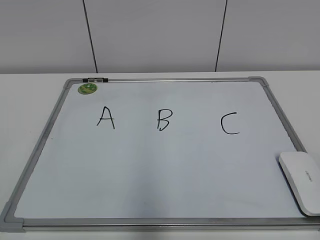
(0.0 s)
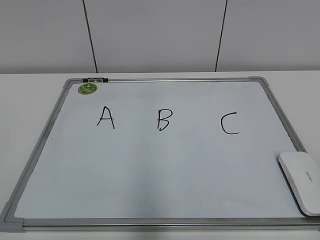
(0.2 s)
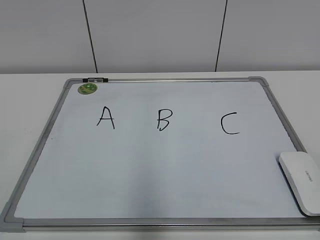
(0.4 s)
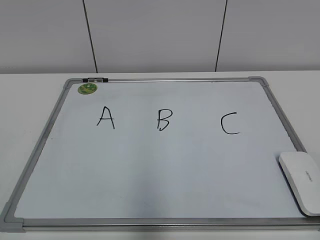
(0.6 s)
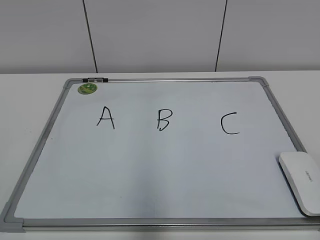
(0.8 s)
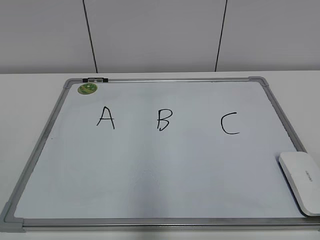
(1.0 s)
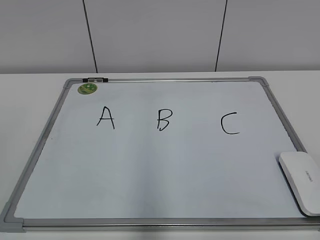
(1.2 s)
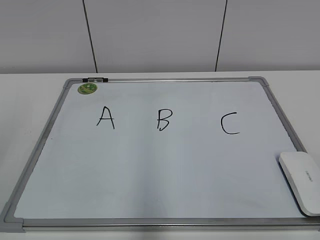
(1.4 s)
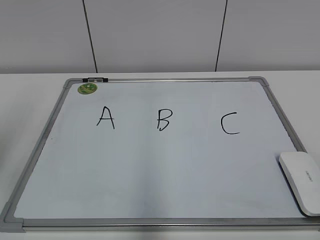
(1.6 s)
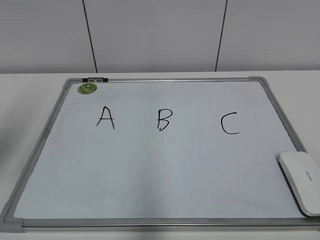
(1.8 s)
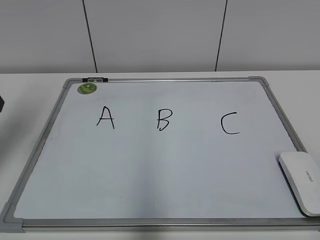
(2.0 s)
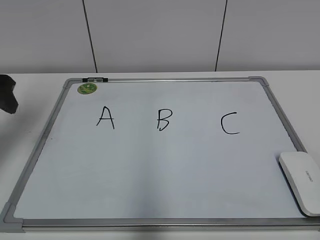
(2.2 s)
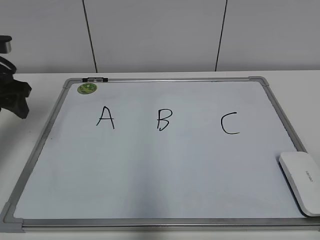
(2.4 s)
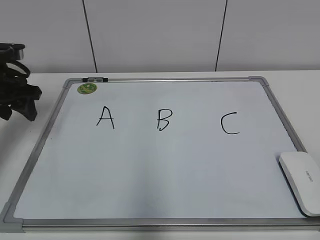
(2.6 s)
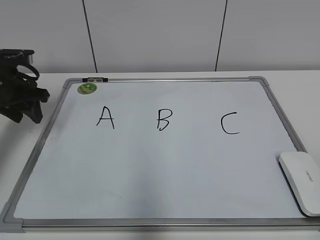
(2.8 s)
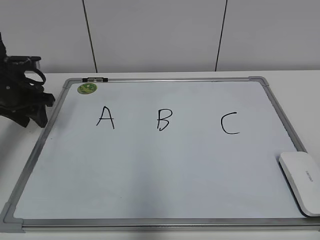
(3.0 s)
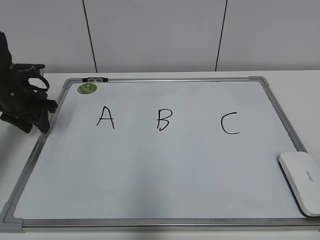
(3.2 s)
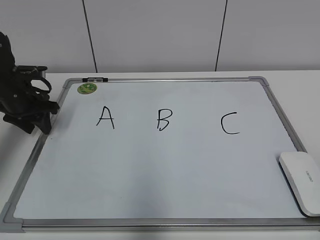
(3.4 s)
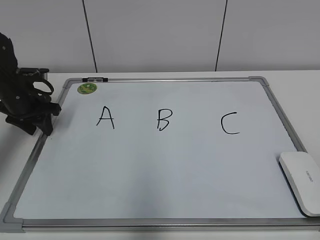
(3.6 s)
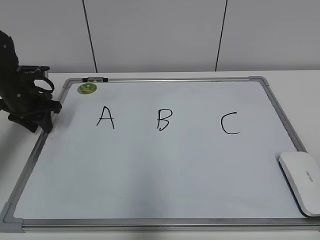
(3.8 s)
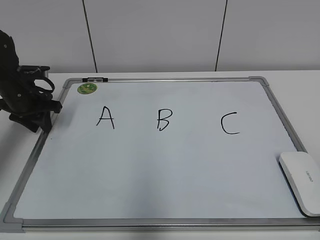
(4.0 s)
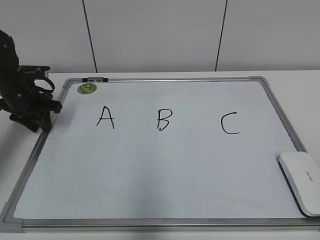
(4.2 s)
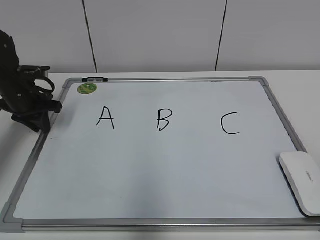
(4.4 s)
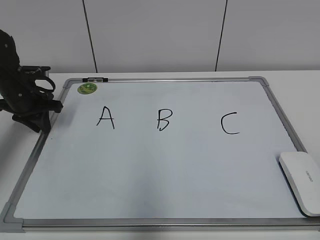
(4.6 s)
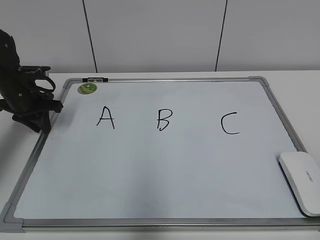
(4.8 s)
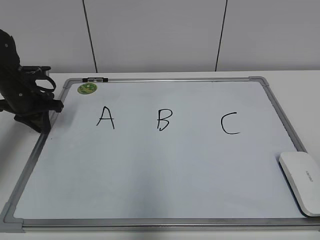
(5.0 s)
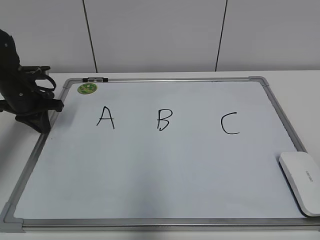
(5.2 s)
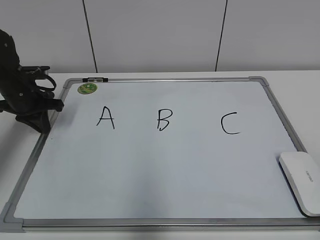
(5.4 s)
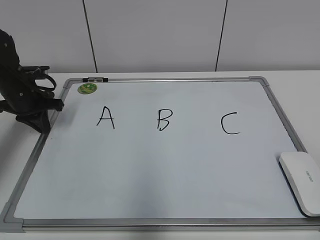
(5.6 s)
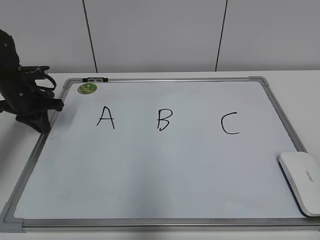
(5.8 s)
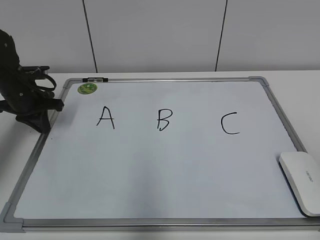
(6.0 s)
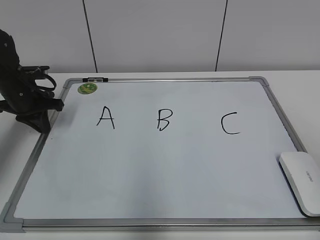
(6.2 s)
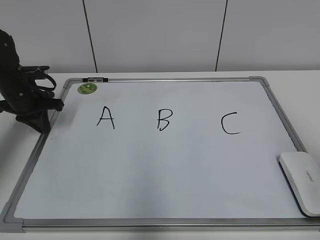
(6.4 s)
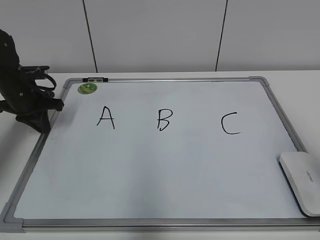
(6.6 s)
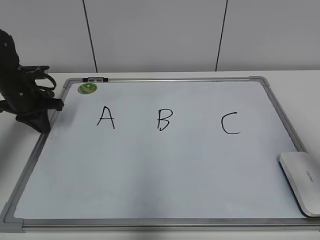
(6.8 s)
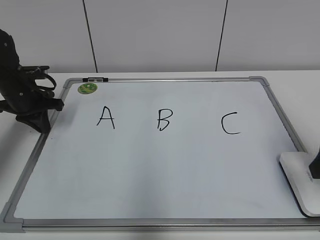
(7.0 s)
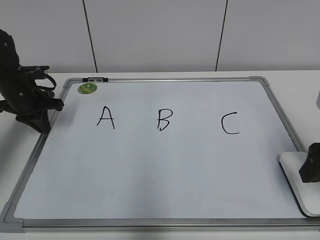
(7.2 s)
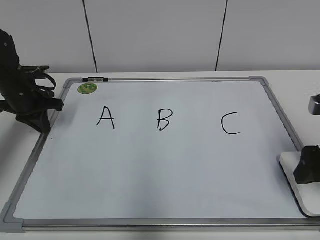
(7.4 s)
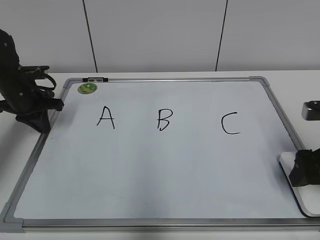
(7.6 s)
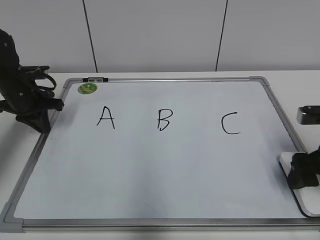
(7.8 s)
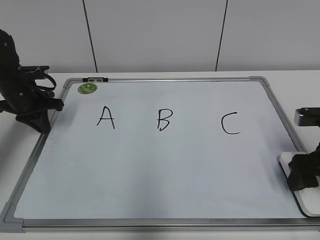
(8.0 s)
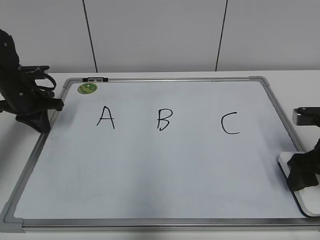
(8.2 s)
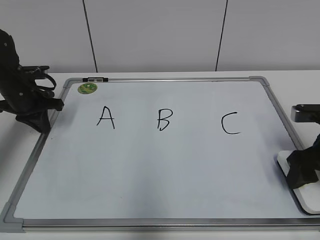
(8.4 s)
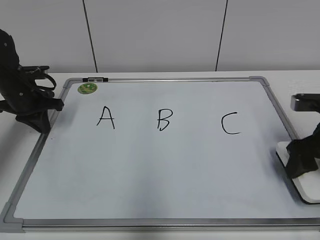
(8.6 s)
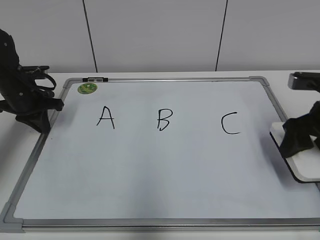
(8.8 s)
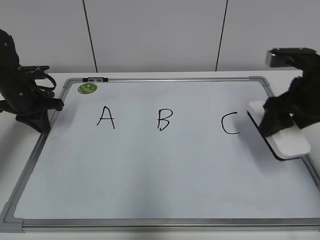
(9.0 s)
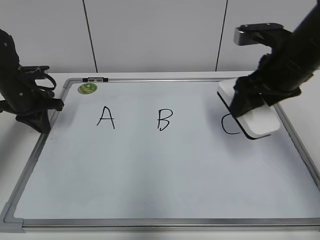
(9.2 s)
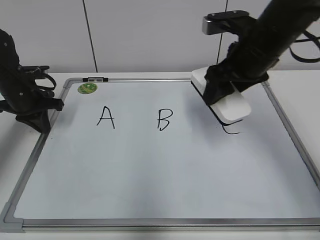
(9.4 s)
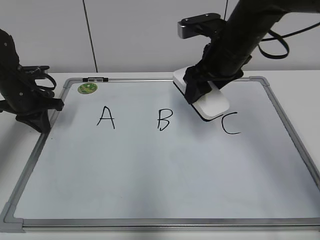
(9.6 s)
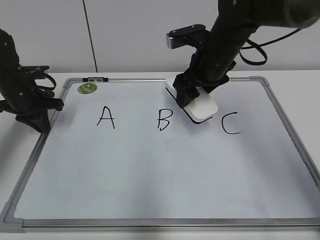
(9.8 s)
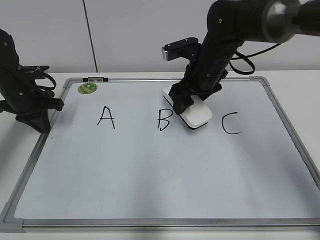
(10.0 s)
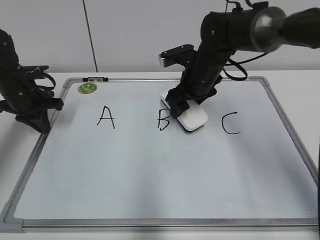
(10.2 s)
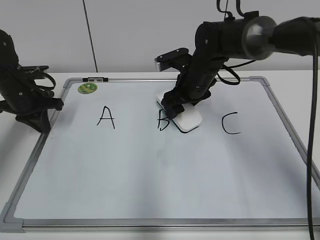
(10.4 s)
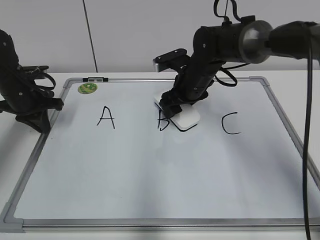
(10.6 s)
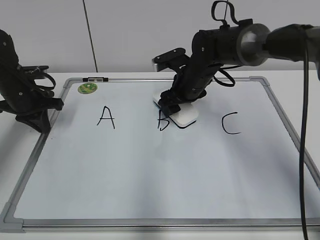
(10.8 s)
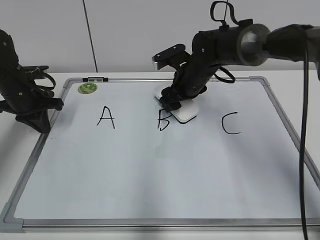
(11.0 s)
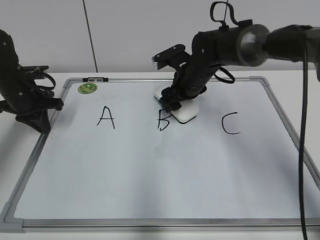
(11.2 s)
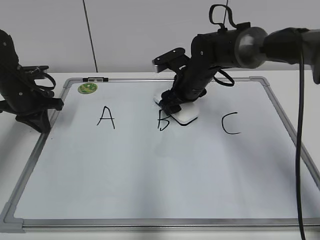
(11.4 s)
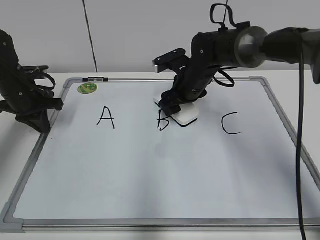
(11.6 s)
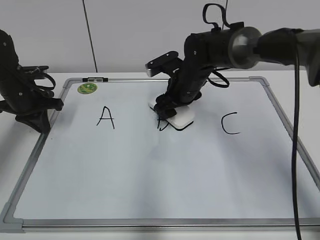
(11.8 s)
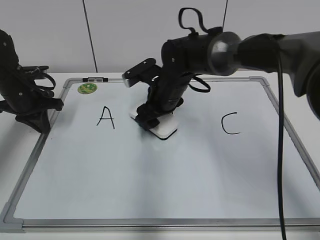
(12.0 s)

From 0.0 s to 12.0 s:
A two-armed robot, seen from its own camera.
Task of the whole recording: pick up the eraser on the blackboard and erase the letter "B".
Step, from 0.0 s to 5.0 s: Hold the drawing board steady with your left hand.
From 1.6 s to 3.0 s: The left gripper shifts approximately 30 cm forward and downward, and closes its fingers.
From 3.0 s to 4.4 s: The grippers move only a little.
From 6.0 s to 7.6 s: The right gripper is displaced forward and downward by about 25 cm, and opens up.
From 7.6 s to 9.0 s: The right gripper is displaced upward and forward by approximately 10 cm, and closes up.
From 9.0 s to 10.4 s: The right gripper moves to the left, forward and downward, some 20 cm.
From 10.4 s to 12.0 s: The right gripper moves to the left, approximately 5 cm.

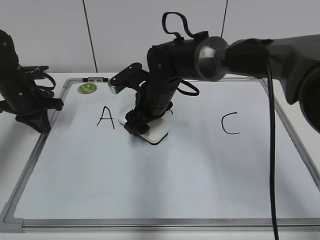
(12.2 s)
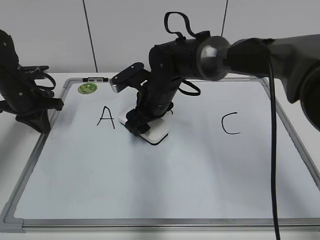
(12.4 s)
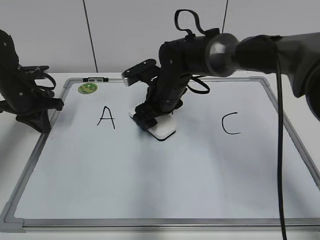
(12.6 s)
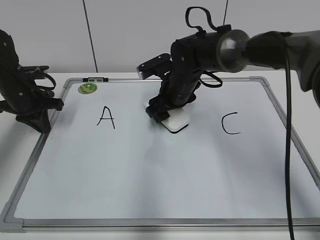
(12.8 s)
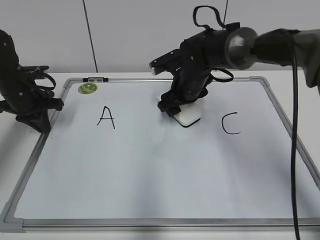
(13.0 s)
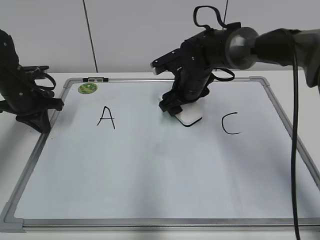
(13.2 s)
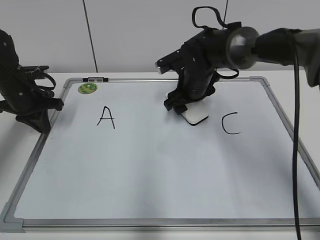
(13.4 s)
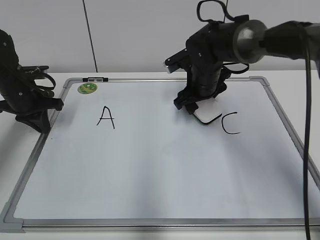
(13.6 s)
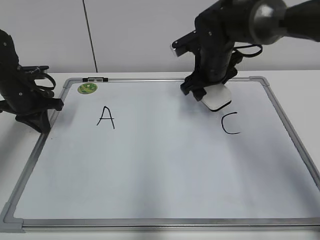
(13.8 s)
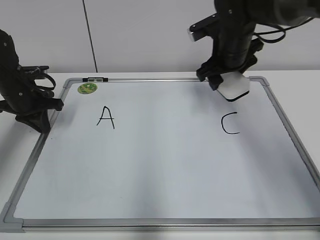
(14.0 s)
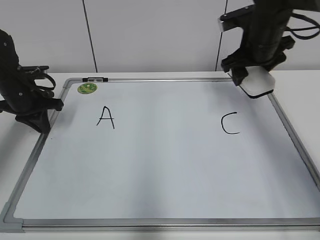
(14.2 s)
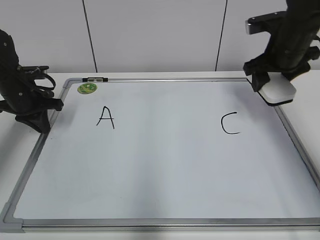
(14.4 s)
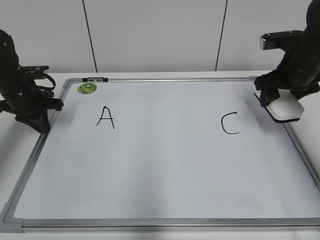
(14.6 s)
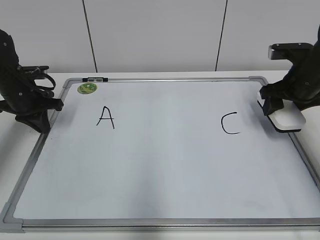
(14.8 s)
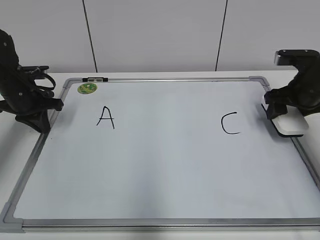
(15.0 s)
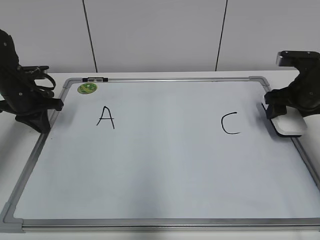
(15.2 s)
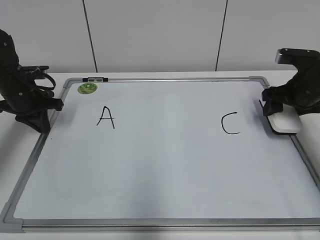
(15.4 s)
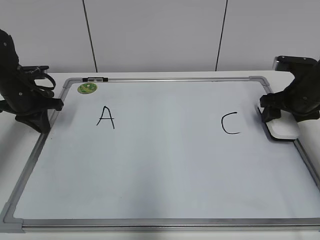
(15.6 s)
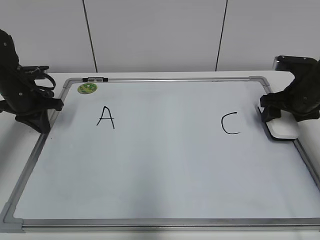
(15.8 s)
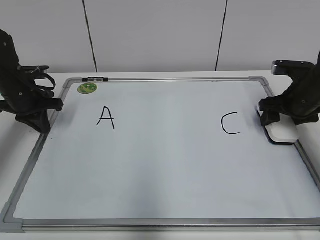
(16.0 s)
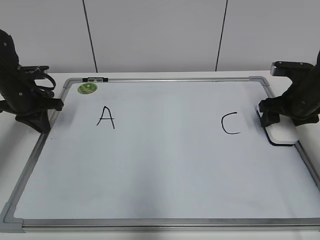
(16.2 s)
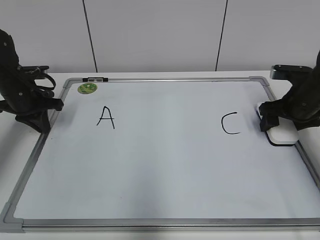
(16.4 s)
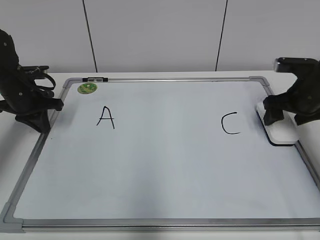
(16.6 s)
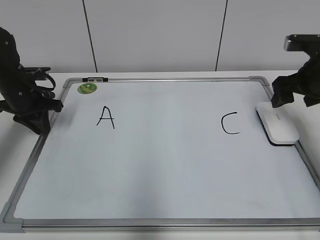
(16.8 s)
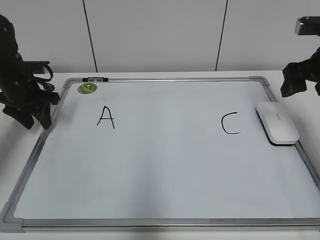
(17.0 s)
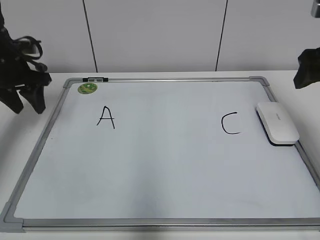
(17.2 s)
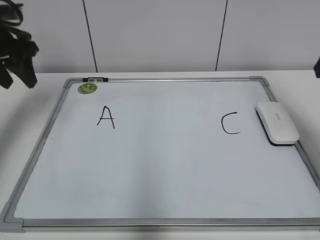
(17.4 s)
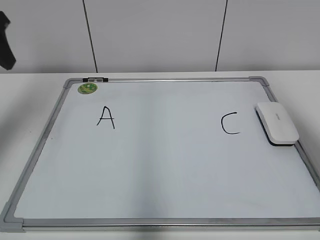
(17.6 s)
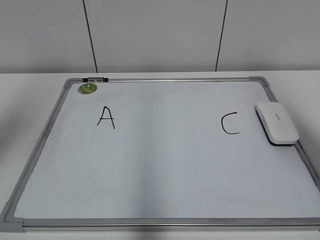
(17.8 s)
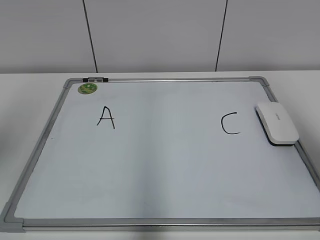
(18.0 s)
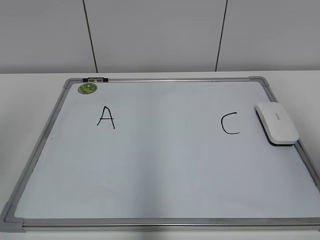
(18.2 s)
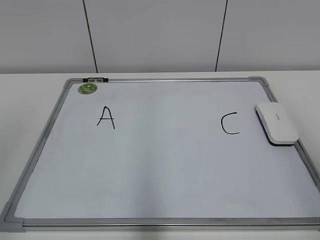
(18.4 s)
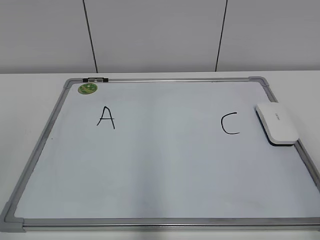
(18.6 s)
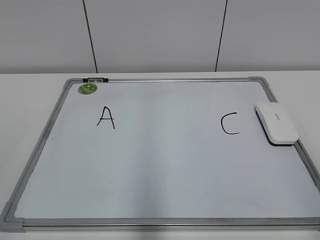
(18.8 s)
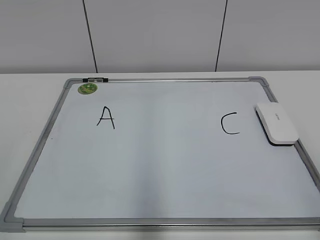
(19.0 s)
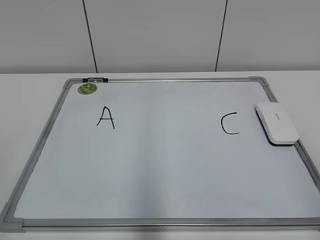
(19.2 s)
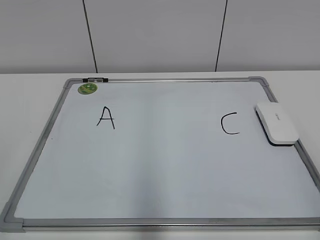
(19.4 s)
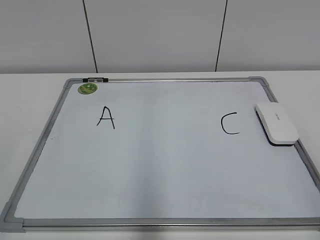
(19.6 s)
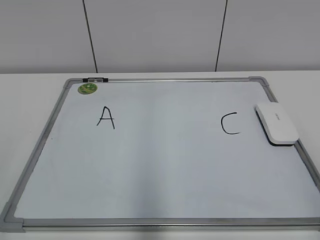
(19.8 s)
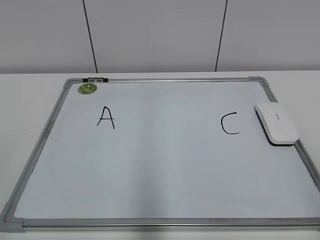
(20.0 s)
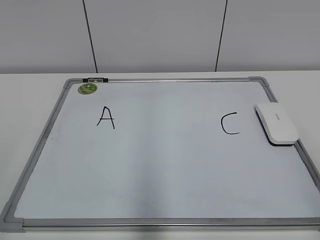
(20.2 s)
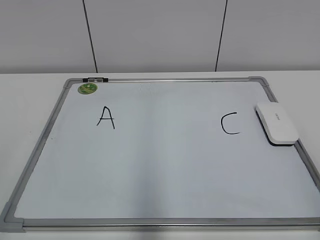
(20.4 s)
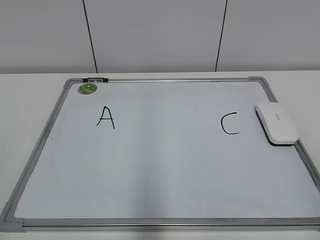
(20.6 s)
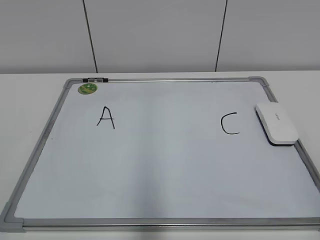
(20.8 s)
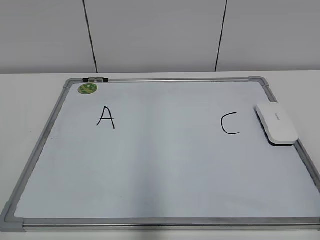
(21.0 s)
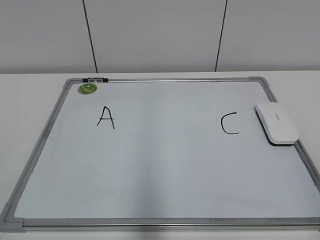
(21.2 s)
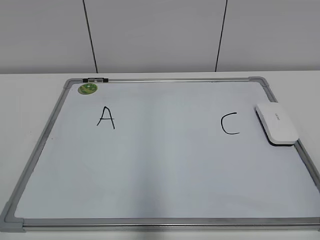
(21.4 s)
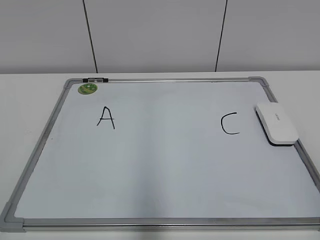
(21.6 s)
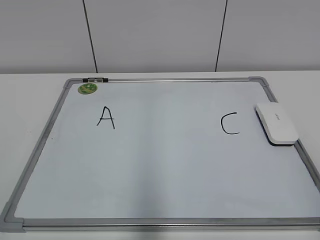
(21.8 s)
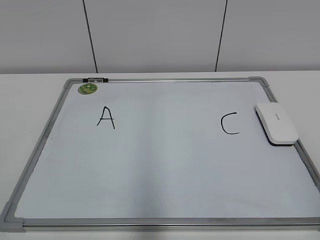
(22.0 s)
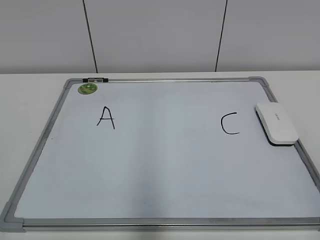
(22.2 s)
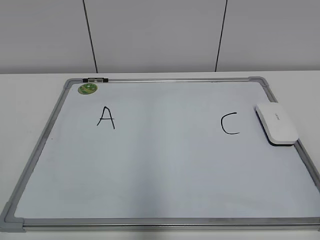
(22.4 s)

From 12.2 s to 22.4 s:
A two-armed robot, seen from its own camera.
Task of the whole recording: pick up the eraser on the blackboard and erase the letter "B".
Step, from 13.6 s to 16.2 s: Put down the eraser with your right hand.
From 12.2 s to 13.6 s: The right gripper goes roughly 10 cm to the right.
From 13.6 s to 15.2 s: The right gripper travels to the right by roughly 20 cm.
From 15.2 s to 16.6 s: The right gripper opens.
From 16.6 s to 18.0 s: The grippers both shift upward and backward by approximately 35 cm. The left gripper opens its fingers.
From 18.0 s to 19.4 s: Both grippers travel together backward and downward, about 20 cm.
From 21.0 s to 22.4 s: Neither gripper changes place.
